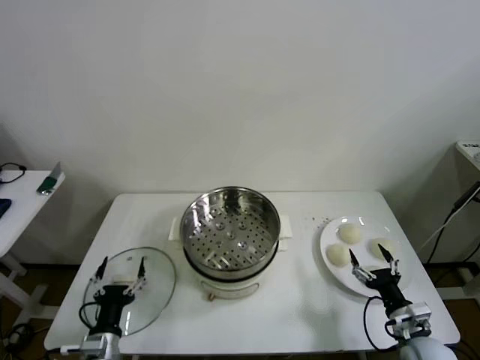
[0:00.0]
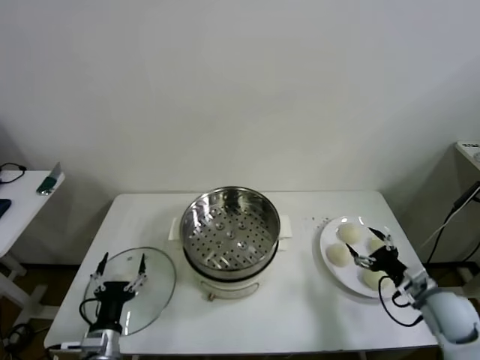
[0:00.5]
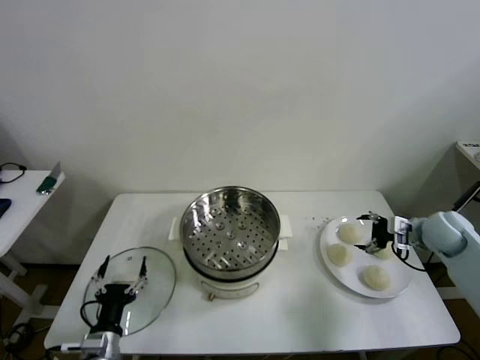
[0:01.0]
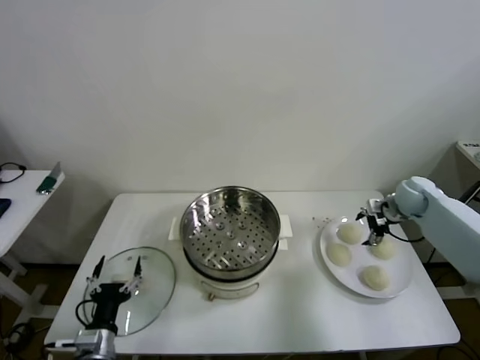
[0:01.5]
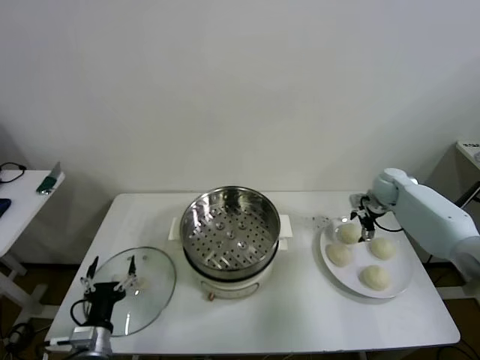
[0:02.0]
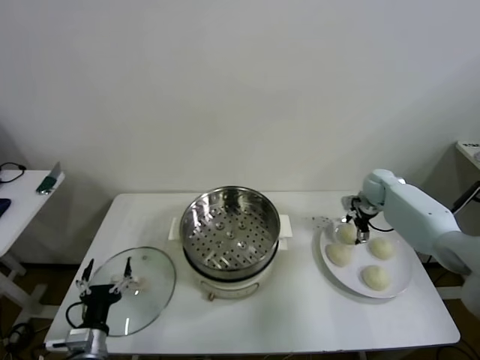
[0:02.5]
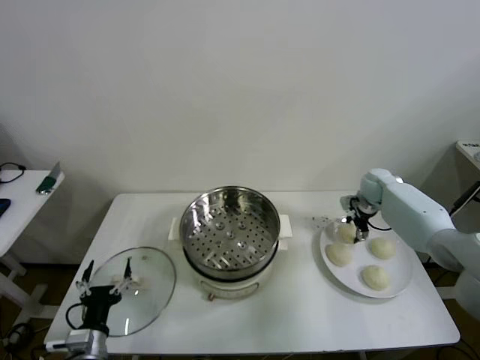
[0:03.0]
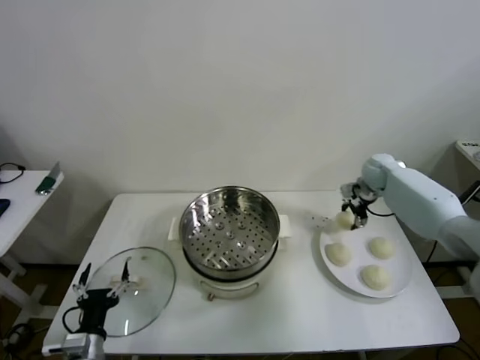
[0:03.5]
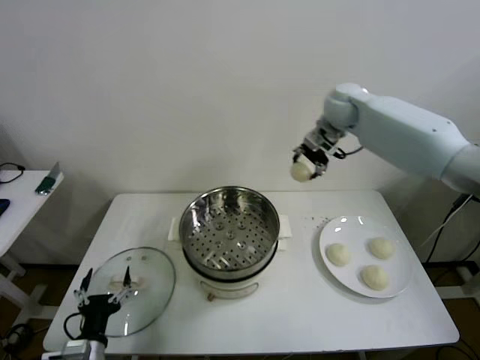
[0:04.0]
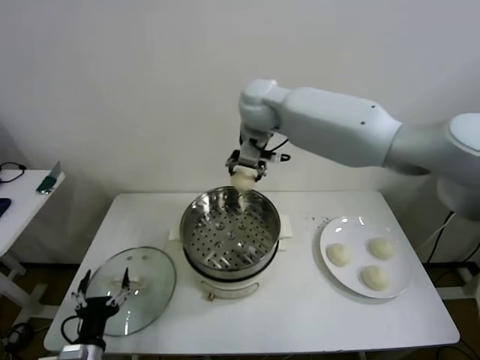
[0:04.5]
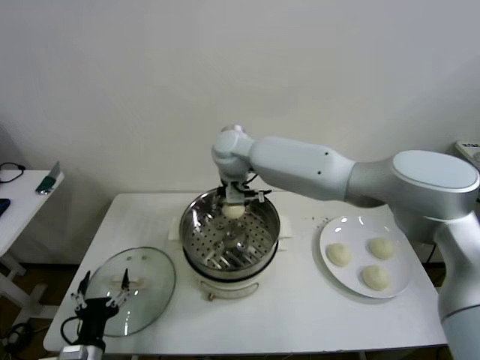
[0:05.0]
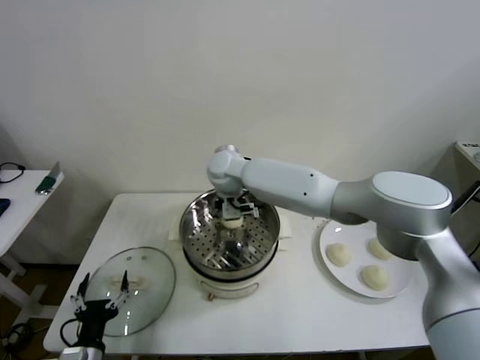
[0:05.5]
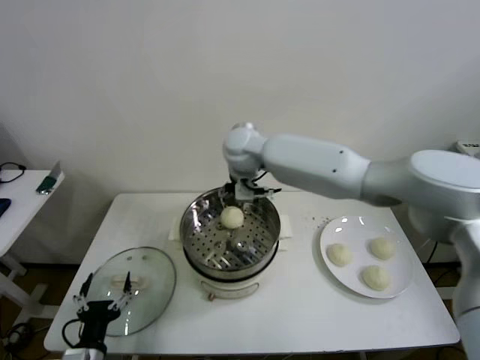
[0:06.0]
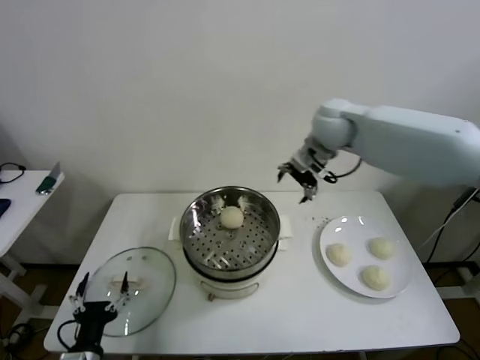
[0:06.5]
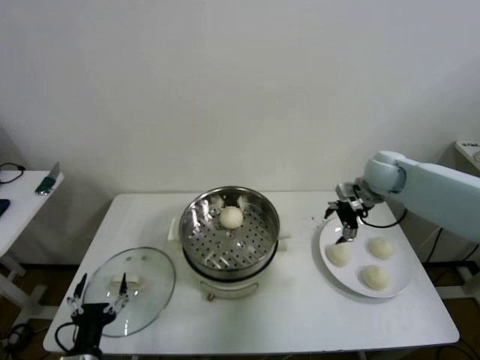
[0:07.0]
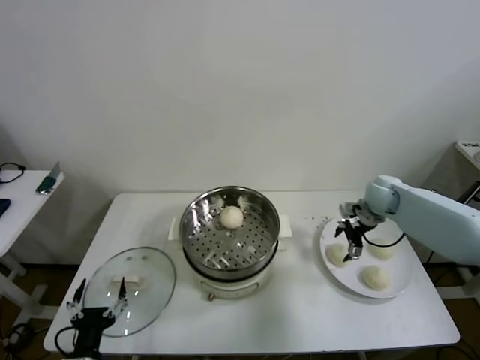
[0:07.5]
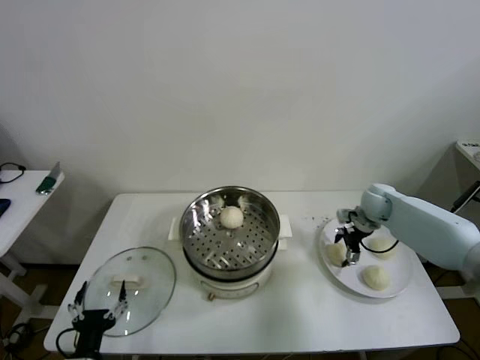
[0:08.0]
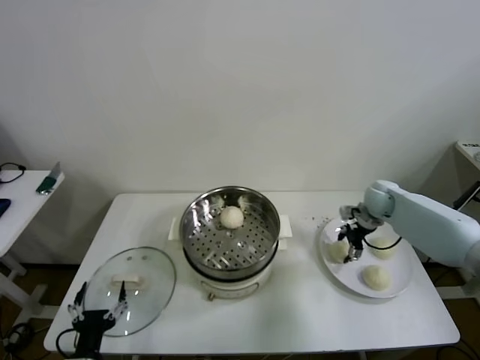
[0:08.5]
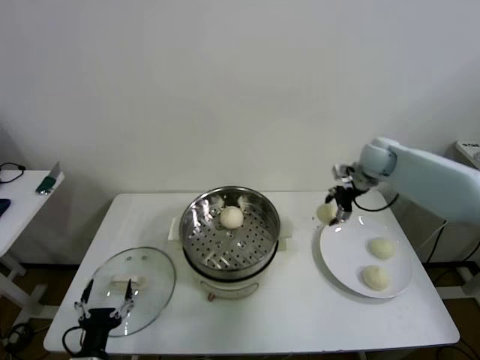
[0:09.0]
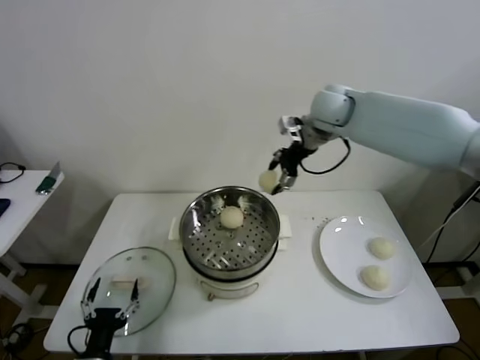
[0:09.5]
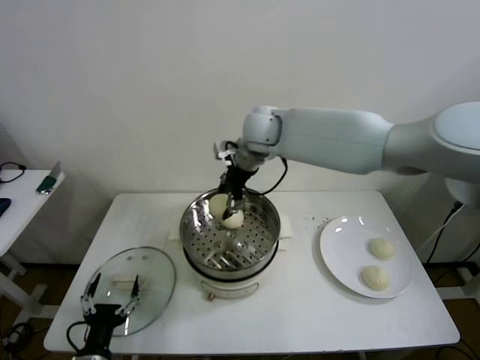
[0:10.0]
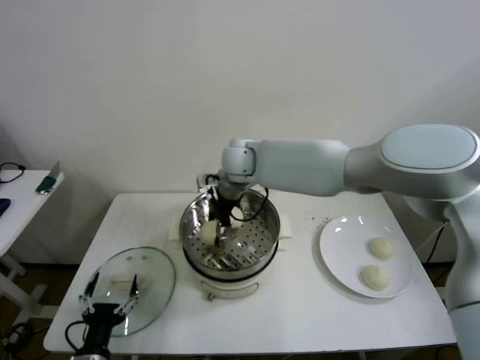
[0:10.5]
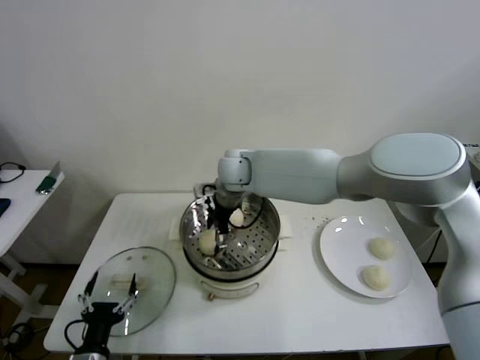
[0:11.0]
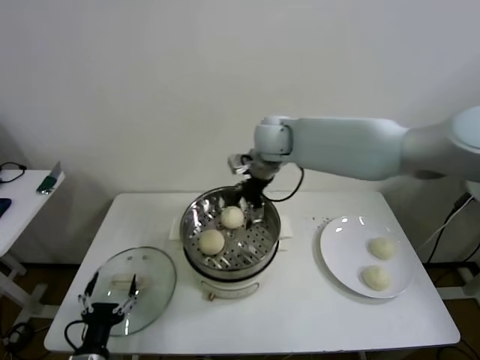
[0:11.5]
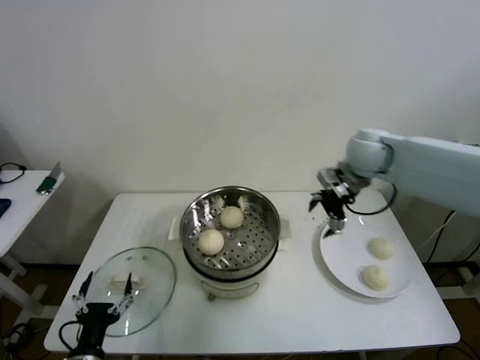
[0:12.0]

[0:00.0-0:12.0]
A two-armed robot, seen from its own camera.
Step, 0.0 to 2.5 s: Grasp the baozi in the plate with right gripper.
Step, 3.0 to 6.0 s: Place the baozi on the steamer with right gripper.
Step, 6.5 to 8.5 s: Grasp the baozi in the plate with right gripper.
Step, 9.0 to 11.0 s: Place the baozi on the steamer with right gripper.
2.0 to 4.0 s: The right gripper is displaced upward and to the left by about 35 cm, and closes its fingers.
4.0 to 6.0 s: The right gripper goes roughly 20 cm to the left and backward, and opens its fingers.
6.0 to 8.0 s: The right gripper heads to the right and downward, covering roughly 40 cm.
8.0 to 10.0 s: The right gripper heads to the left and upward, covering approximately 40 cm, and closes.
10.0 to 12.0 s: The right gripper shifts about 25 cm to the right, and opens up.

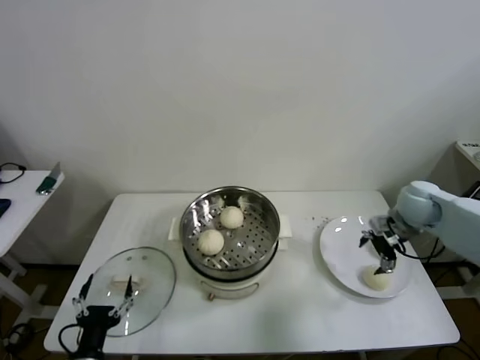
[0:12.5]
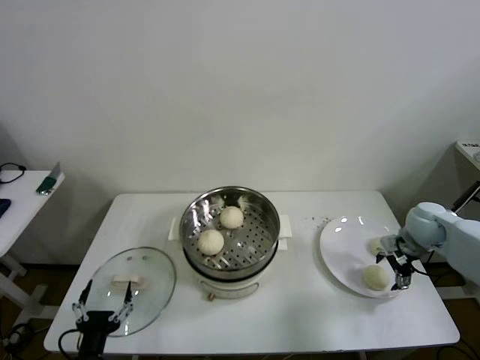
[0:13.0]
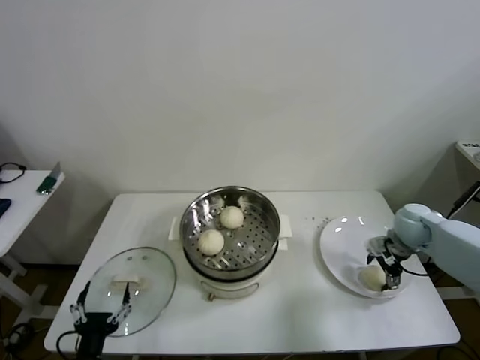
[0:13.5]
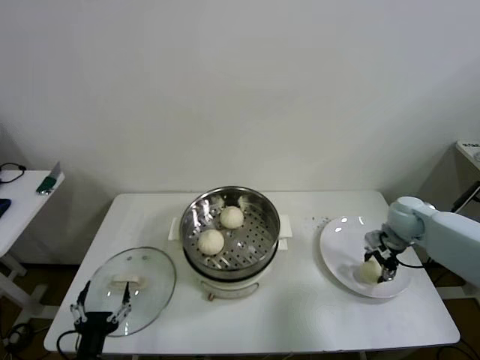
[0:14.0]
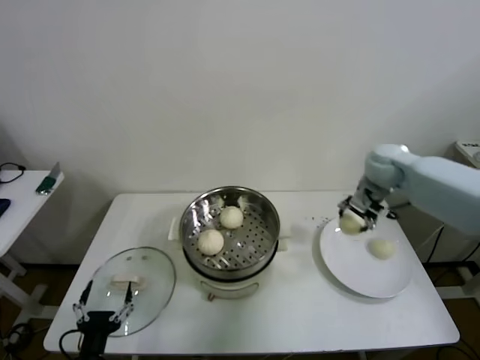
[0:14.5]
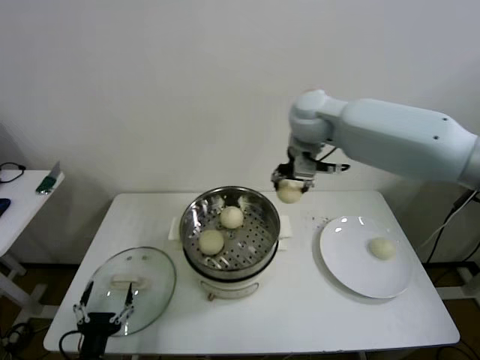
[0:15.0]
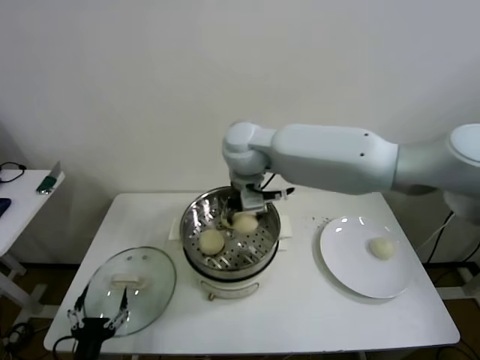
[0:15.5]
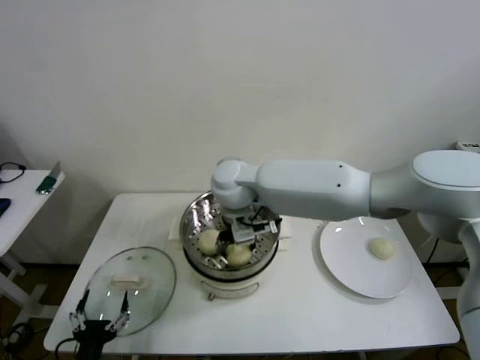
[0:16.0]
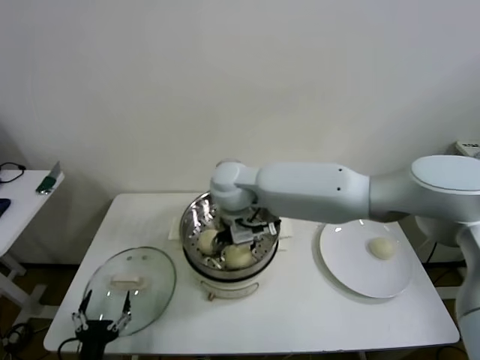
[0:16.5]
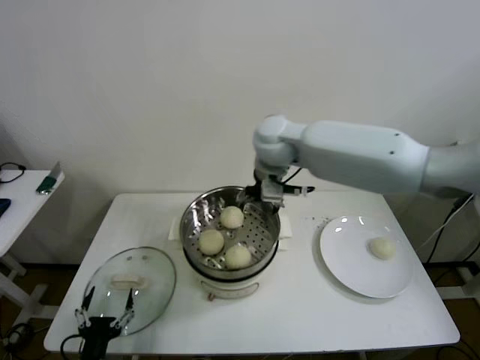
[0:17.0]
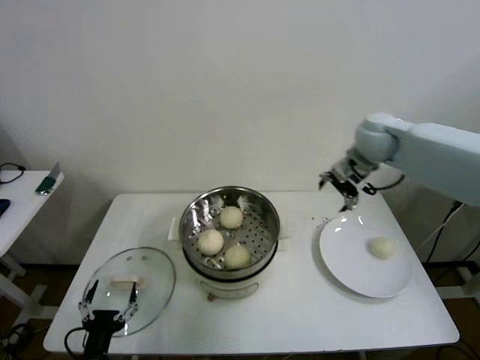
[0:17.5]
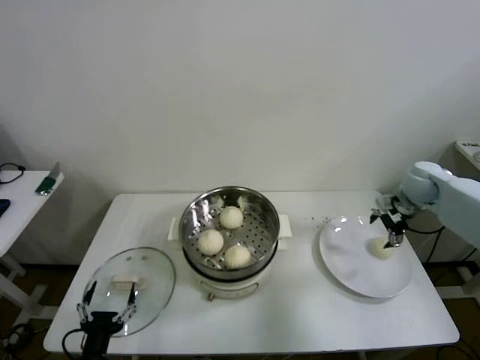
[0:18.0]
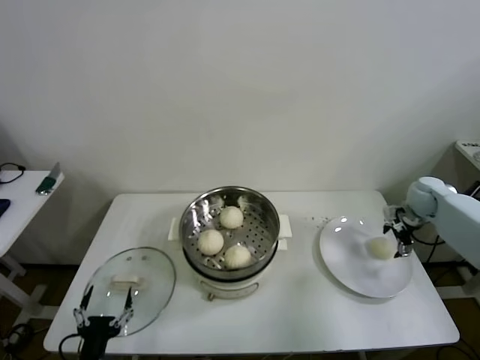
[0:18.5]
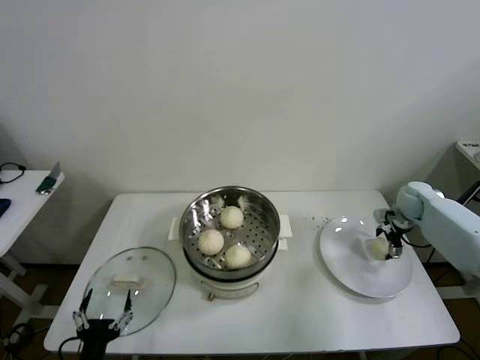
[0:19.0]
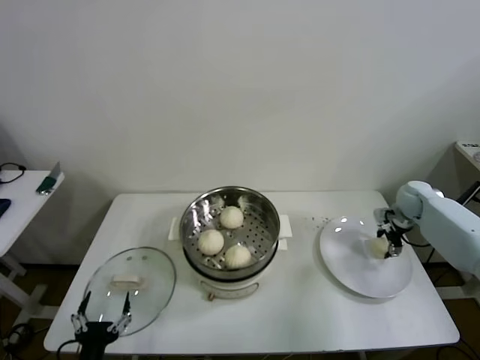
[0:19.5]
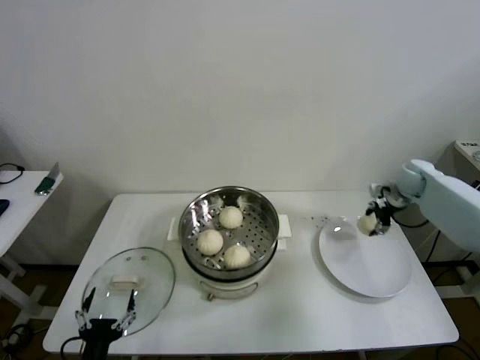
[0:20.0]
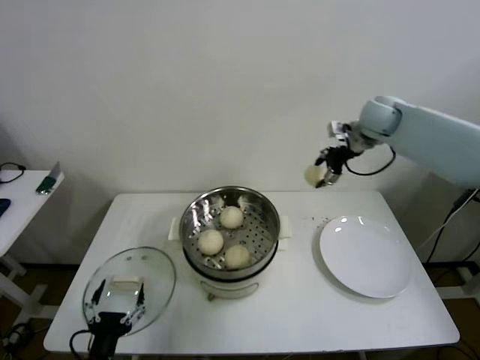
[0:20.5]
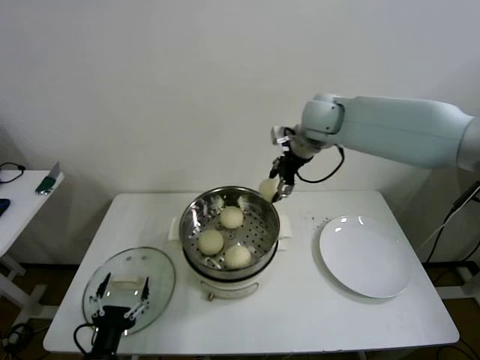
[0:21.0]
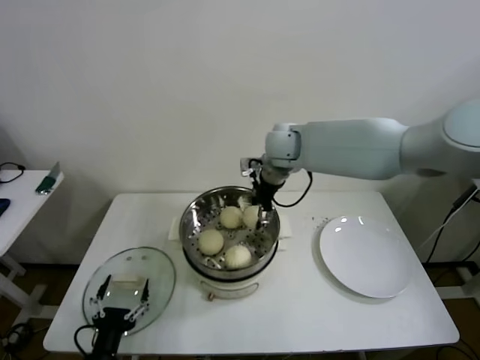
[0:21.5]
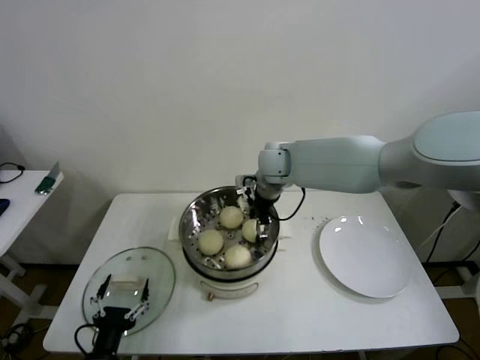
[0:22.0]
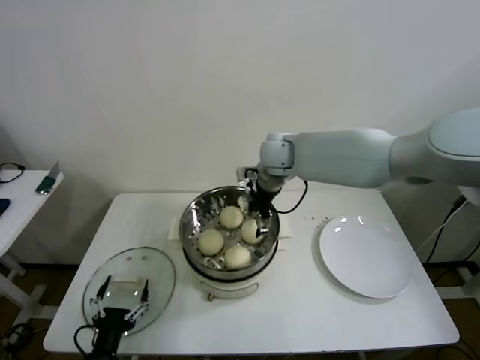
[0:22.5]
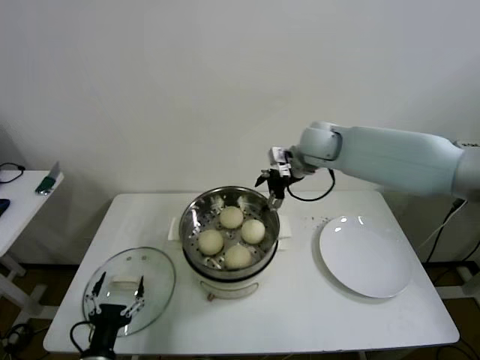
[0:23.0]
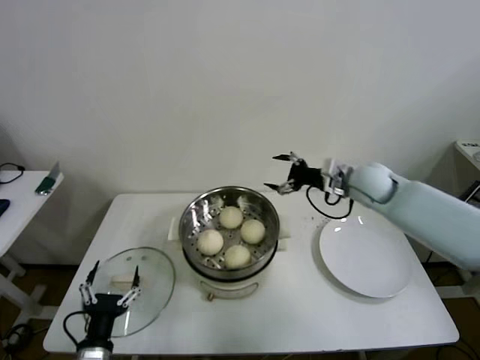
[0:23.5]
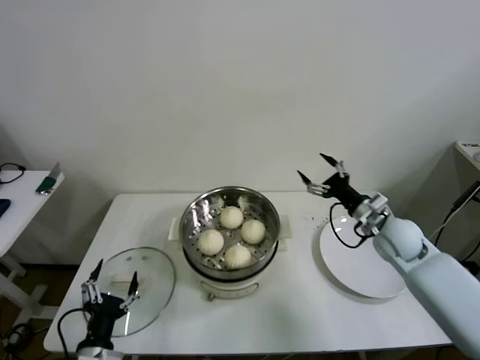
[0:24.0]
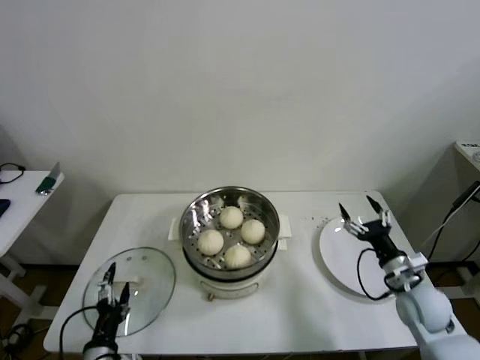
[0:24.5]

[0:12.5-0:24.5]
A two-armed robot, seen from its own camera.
Step, 14.0 to 16.5 s: Place the baozi on the steamer with right gripper.
Step, 17.0 to 19.5 s: Grasp the baozi in the plate with right gripper.
Step, 20.0 to 22.5 s: Place the baozi on the steamer with right gripper.
12.5 to 14.5 s: The right gripper moves to the left, upward and forward, roughly 15 cm, and closes its fingers.
14.5 to 16.5 s: The right gripper shifts roughly 35 cm to the left, and opens up.
16.5 to 18.5 s: The right gripper is displaced to the right by roughly 50 cm.
18.5 to 20.5 s: The right gripper is displaced upward and to the left by about 25 cm, and closes its fingers.
20.5 to 22.5 s: The right gripper shifts roughly 20 cm to the left, and opens up.
22.5 to 24.5 s: The right gripper heads to the right, backward and downward, covering some 50 cm.

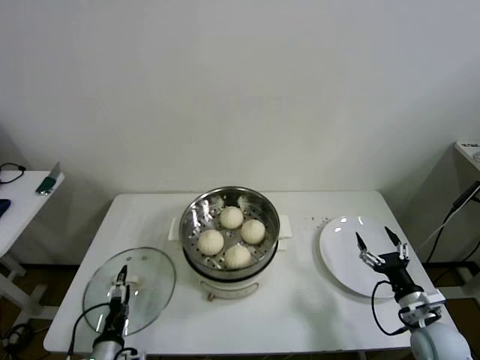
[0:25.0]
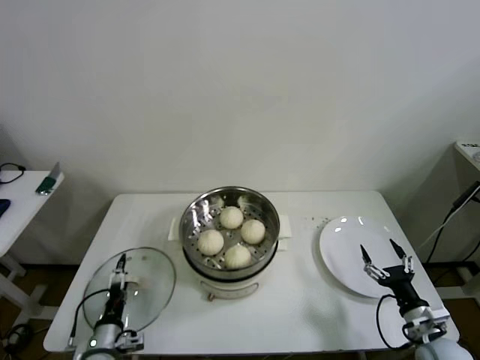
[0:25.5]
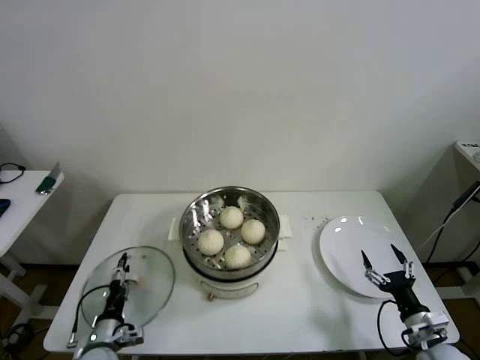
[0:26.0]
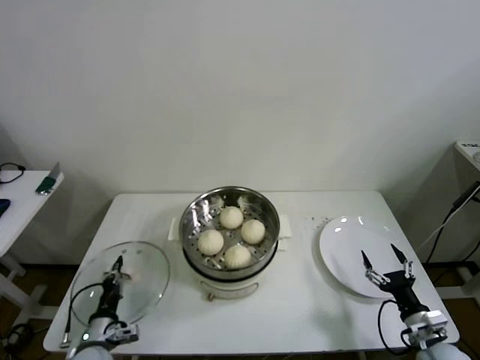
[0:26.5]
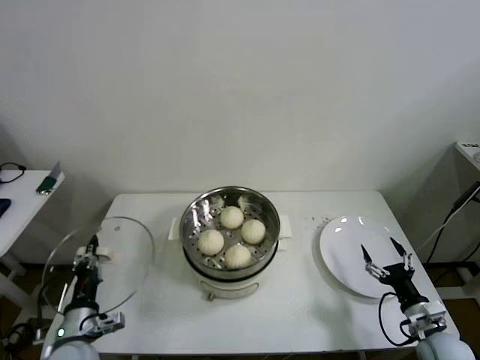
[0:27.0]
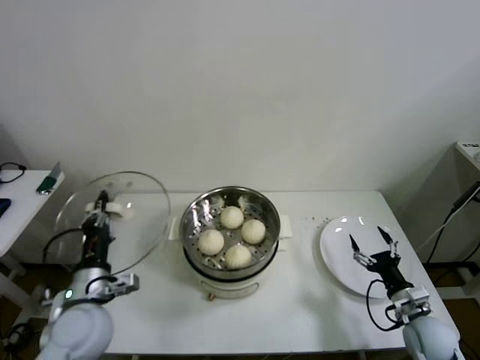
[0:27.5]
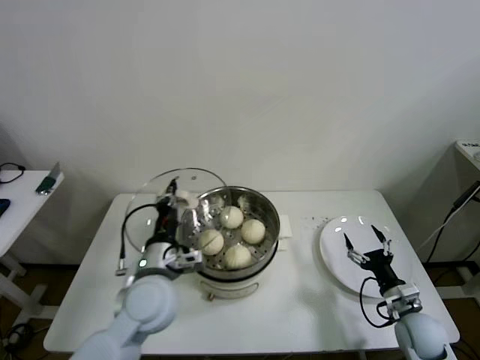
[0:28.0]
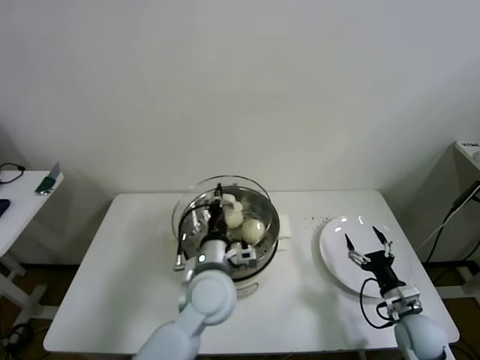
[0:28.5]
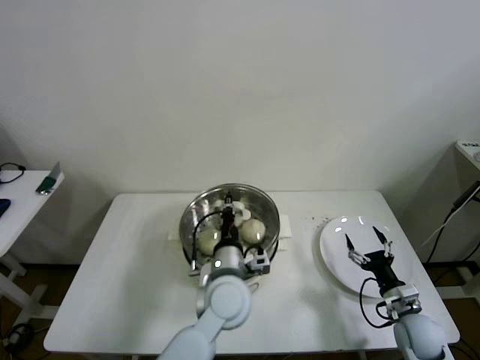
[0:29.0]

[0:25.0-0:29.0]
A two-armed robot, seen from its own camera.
25.0 to 27.0 s: The left gripper travels upward by some 5 cm, and closes up.
27.0 to 29.0 s: The left gripper shifts approximately 30 cm to the right; the right gripper ends up about 5 cm from where it was.
